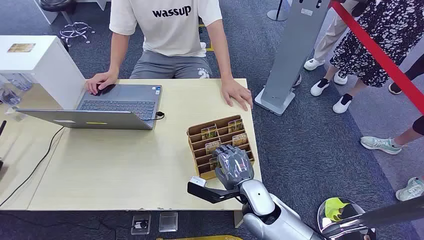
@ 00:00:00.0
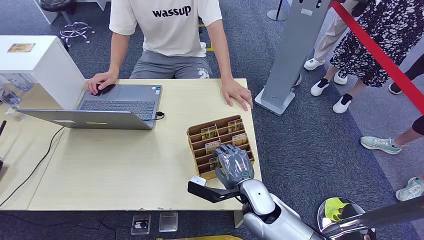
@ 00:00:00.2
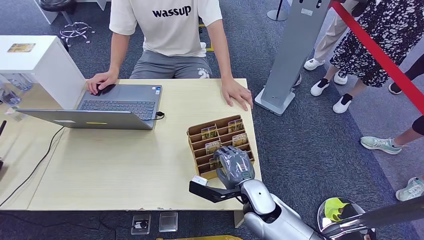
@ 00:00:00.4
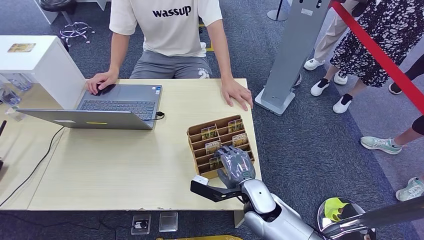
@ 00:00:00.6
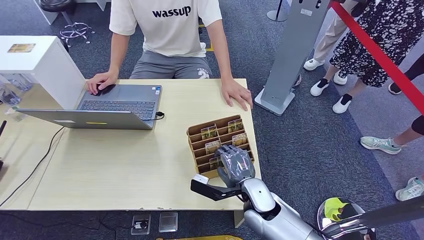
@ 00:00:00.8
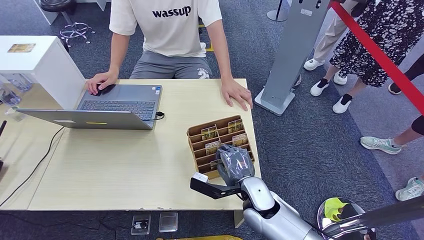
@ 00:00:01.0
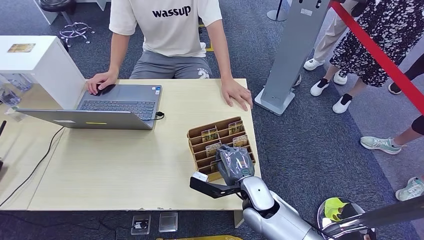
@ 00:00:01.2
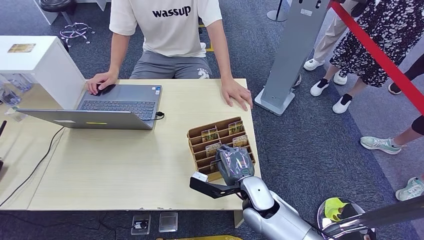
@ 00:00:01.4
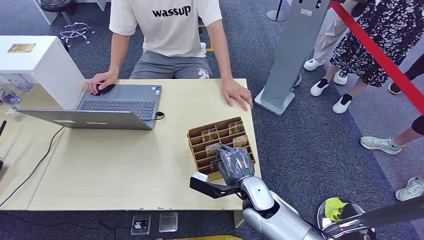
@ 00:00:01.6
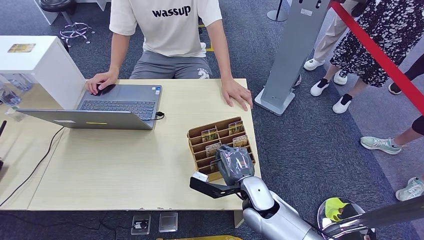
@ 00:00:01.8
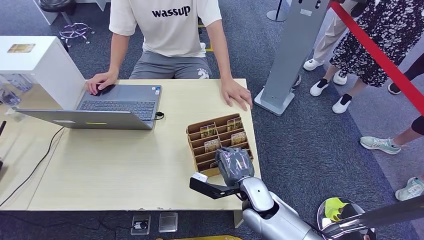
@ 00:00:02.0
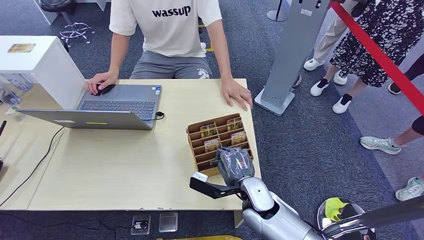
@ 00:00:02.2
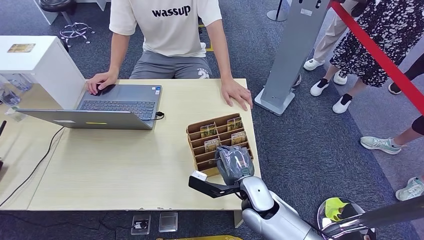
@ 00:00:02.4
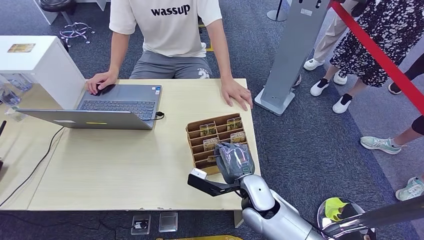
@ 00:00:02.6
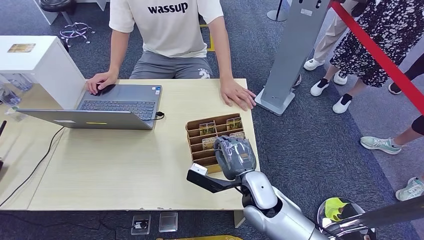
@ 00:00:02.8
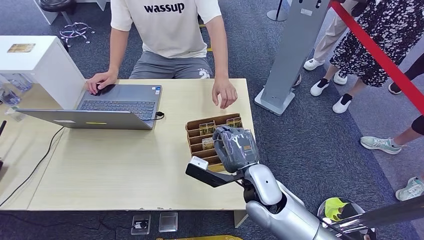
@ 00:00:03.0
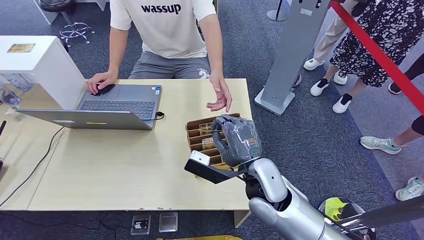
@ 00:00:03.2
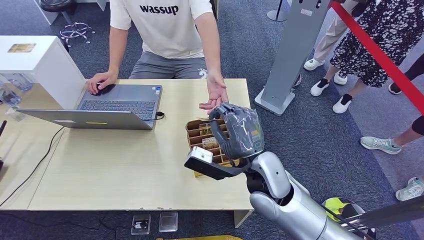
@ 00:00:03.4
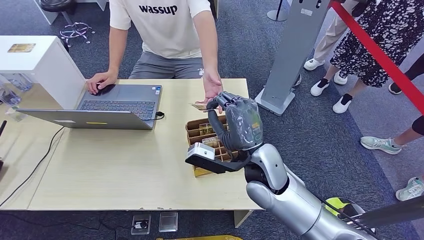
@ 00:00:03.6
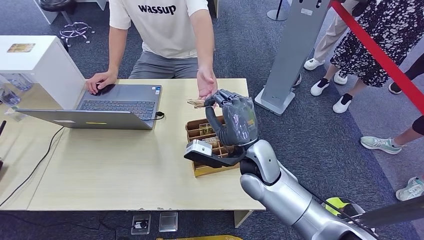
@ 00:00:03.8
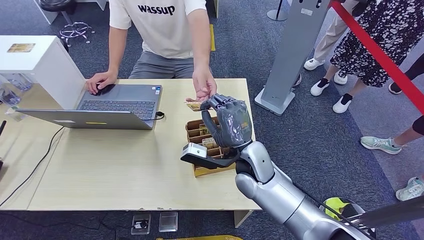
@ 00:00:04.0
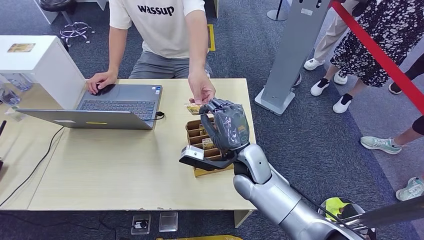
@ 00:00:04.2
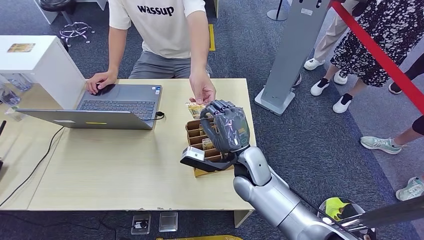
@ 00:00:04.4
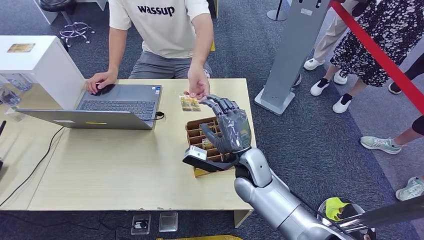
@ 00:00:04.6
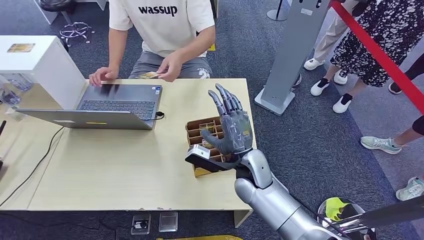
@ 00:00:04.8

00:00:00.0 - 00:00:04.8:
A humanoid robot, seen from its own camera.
Step, 00:00:00.0 - 00:00:02.8: Pick up the key card from the card box.
Step, 00:00:03.4 - 00:00:04.6: Hand the key card to the target.
00:00:01.6 - 00:00:03.2: The right hand goes some 10 cm upward.
00:00:03.2 - 00:00:04.8: The right hand shifts by roughly 5 cm.
